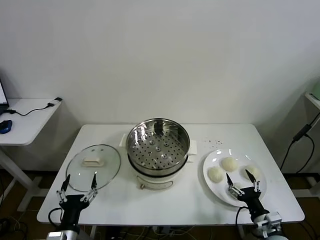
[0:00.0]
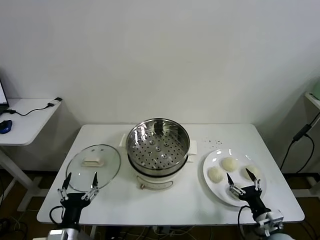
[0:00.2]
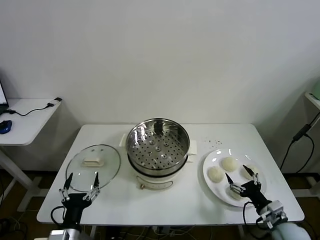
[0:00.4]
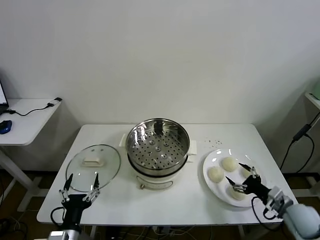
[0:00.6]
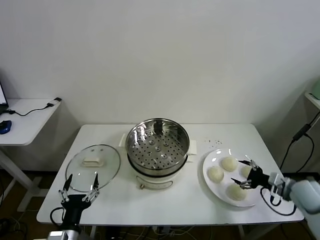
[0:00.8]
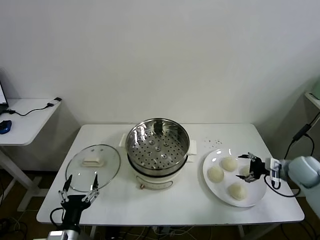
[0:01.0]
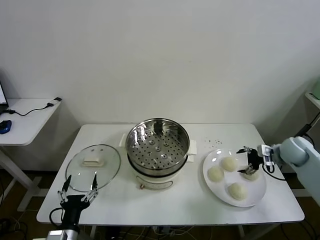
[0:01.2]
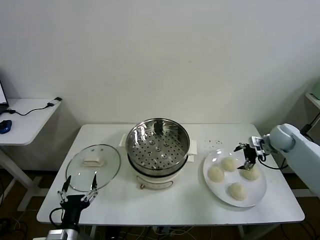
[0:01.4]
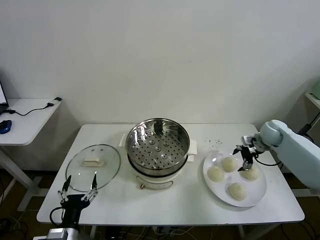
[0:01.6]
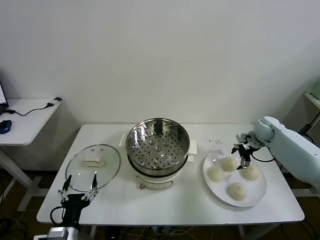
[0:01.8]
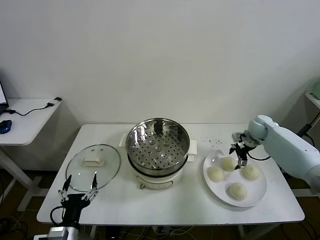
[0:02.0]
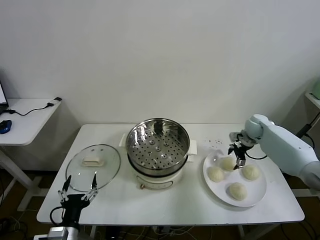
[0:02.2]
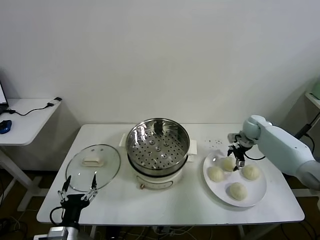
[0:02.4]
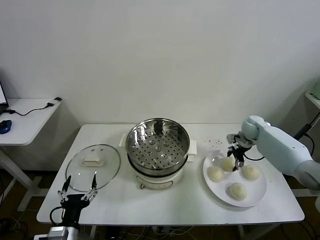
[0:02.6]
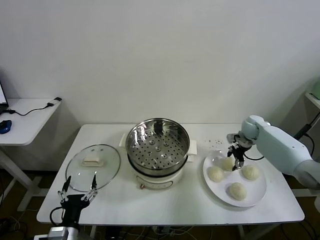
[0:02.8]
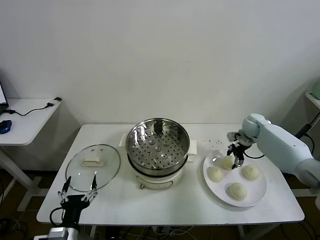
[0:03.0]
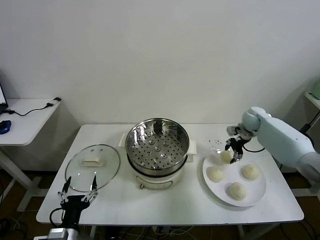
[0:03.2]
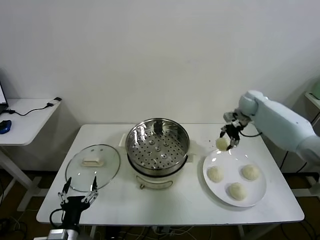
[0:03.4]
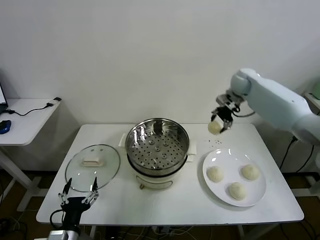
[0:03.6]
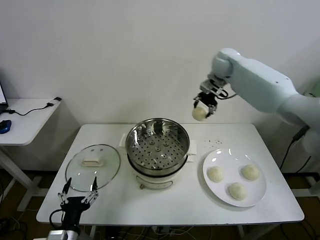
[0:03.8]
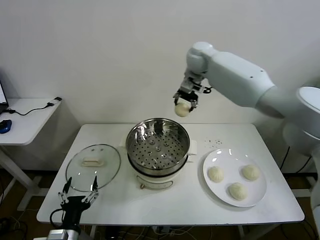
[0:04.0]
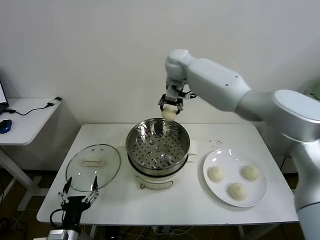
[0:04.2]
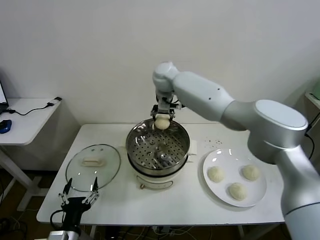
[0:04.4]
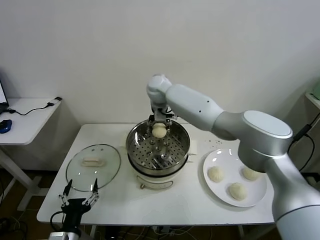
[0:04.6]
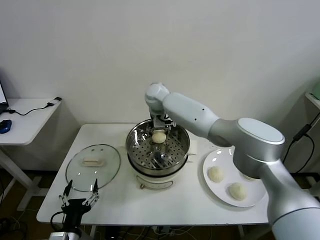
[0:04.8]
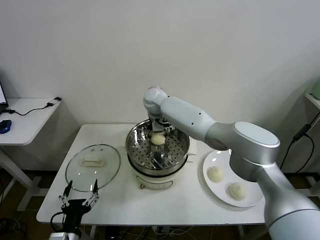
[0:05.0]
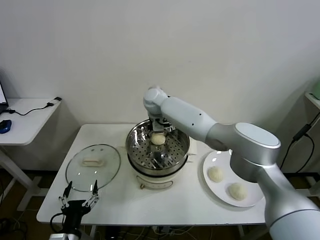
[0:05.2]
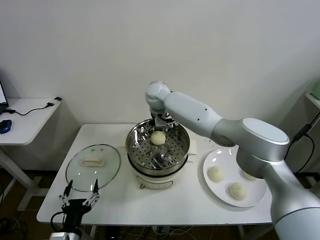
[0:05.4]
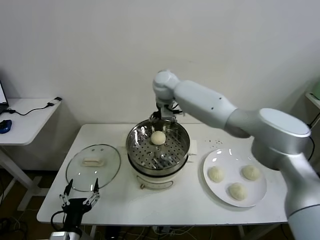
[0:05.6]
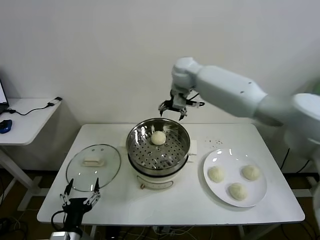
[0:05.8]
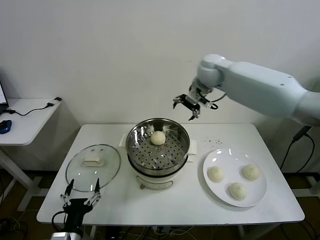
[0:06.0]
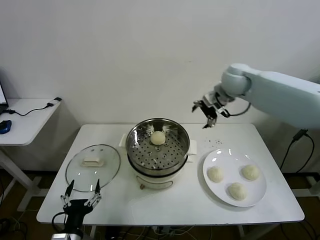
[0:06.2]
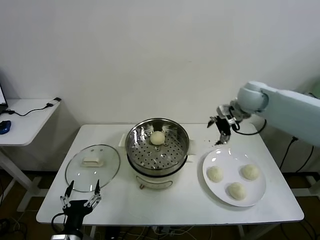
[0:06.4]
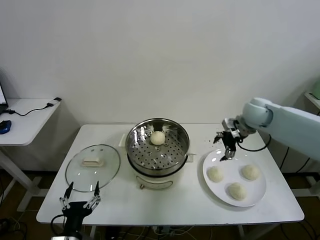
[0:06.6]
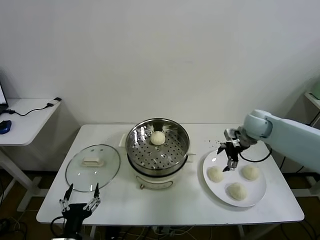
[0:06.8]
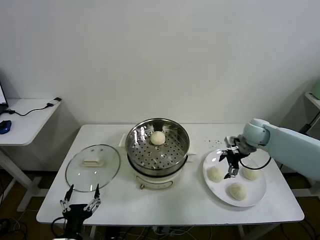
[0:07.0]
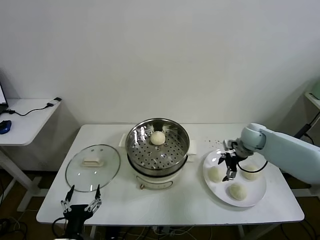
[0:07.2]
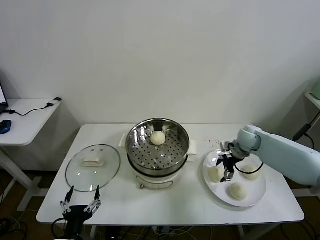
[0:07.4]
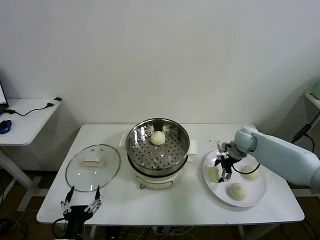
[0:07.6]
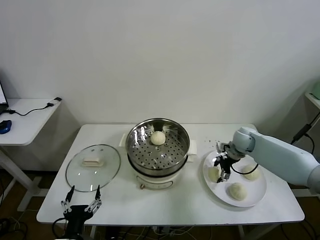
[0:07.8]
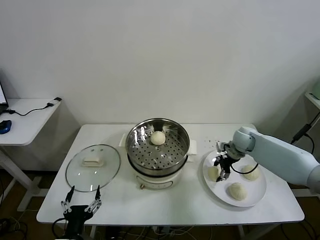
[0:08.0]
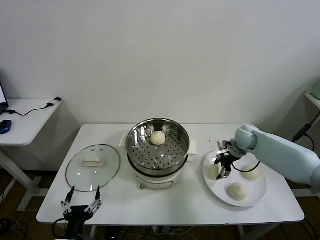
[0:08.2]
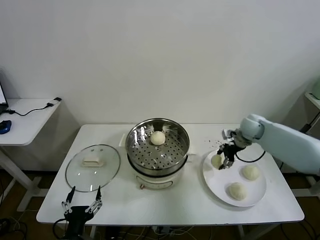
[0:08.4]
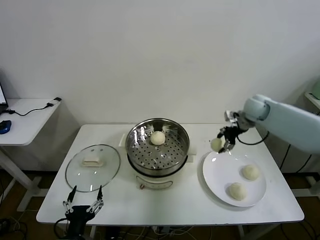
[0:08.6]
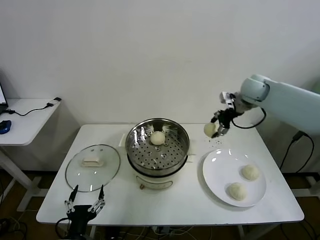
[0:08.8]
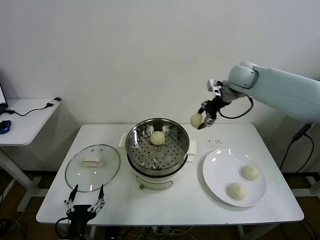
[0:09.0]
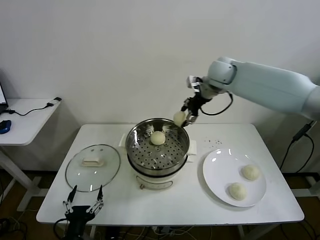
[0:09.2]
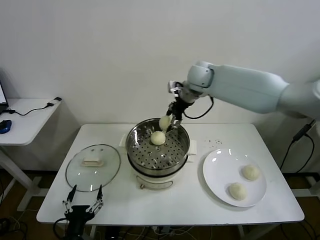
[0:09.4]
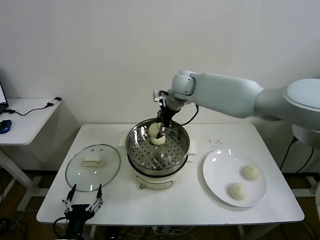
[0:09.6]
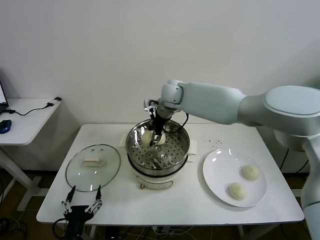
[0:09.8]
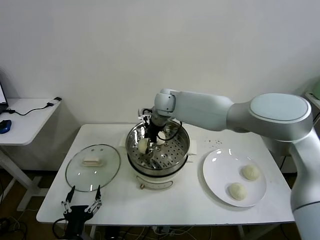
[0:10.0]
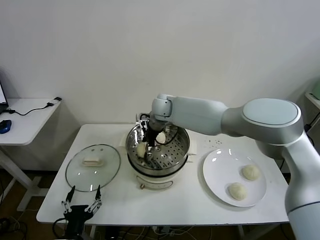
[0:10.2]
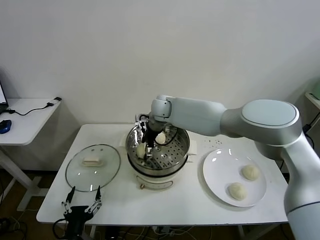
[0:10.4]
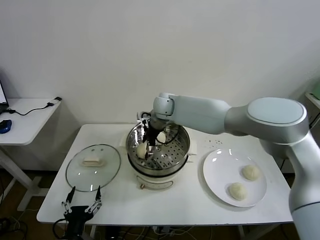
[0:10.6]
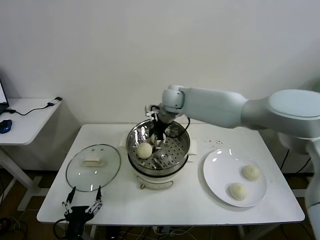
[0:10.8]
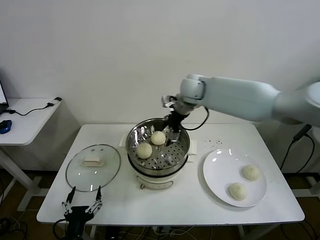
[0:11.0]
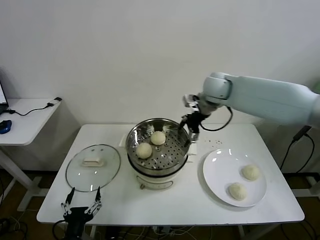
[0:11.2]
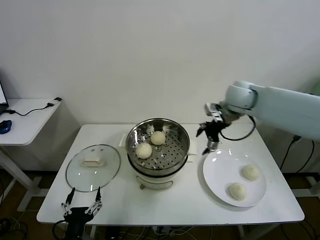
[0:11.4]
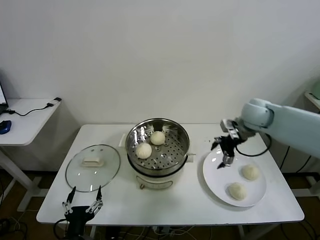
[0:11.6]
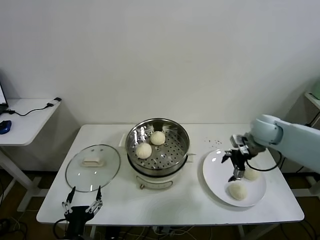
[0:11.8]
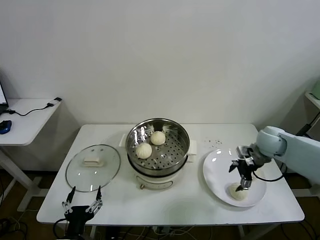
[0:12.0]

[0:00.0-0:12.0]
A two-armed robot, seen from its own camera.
Task of the whole recording: take steamed baozi put them in steamer then cover it.
Step, 0:00.0 to 0:02.8: Grasp the baozi in the plate with right gripper.
Step, 0:03.2 to 0:05.4: Place the baozi on the steamer with right gripper.
Step, 0:05.6 to 0:08.0: Grasp the baozi in the plate with right gripper.
Step, 0:08.2 to 0:10.4: Place the baozi on the steamer with right gripper.
0:01.6 to 0:03.0: The right gripper moves about 5 cm, and closes.
0:03.0 to 0:04.4: The right gripper moves to the left and upward, about 40 cm.
0:04.4 to 0:06.0: The right gripper heads to the right, covering about 20 cm, and opens.
0:06.0 to 0:07.6: The right gripper moves downward and to the right, approximately 30 cm.
0:07.6 to 0:09.0: The right gripper shifts some 25 cm upward, and closes up.
0:09.0 to 0:10.4: The right gripper heads to the left and downward, covering approximately 25 cm, and opens up.
0:10.4 to 0:12.0: The right gripper heads to the right, covering some 35 cm.

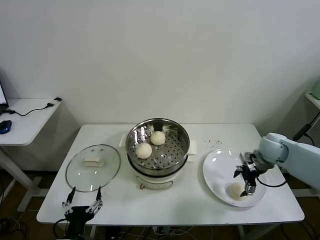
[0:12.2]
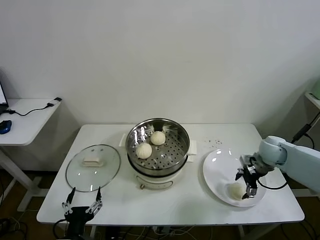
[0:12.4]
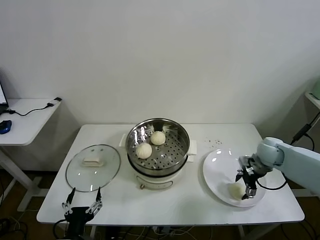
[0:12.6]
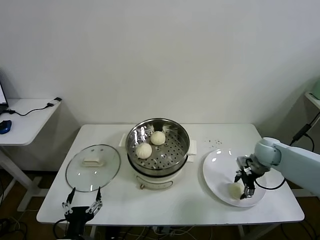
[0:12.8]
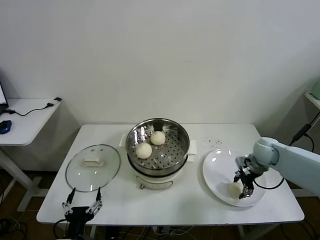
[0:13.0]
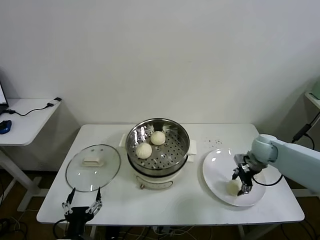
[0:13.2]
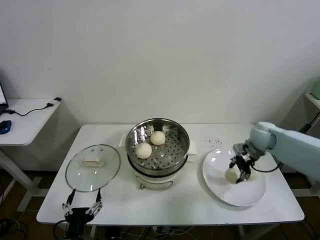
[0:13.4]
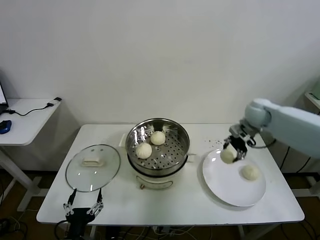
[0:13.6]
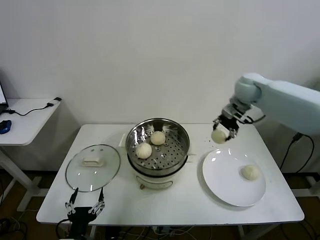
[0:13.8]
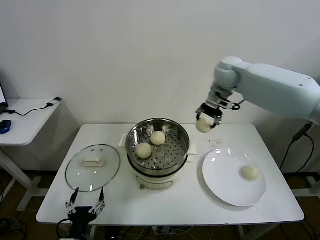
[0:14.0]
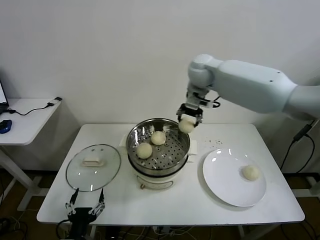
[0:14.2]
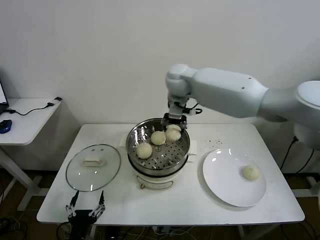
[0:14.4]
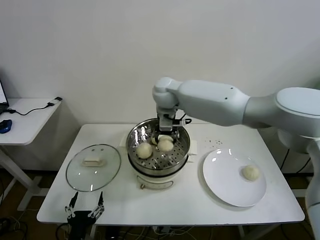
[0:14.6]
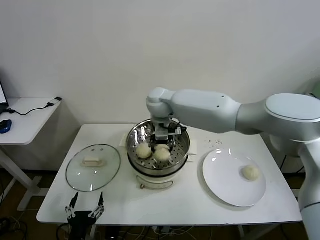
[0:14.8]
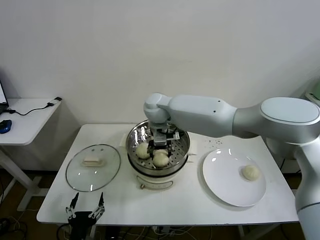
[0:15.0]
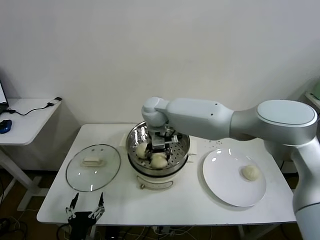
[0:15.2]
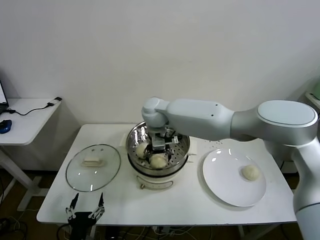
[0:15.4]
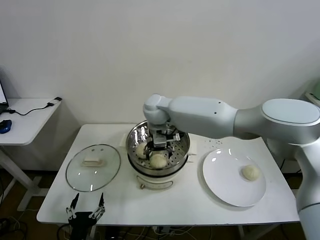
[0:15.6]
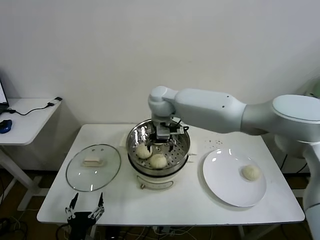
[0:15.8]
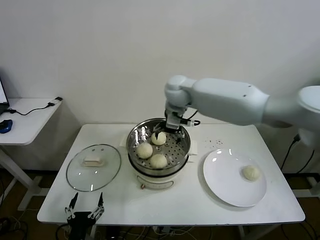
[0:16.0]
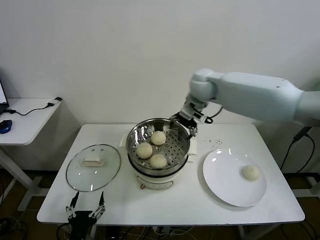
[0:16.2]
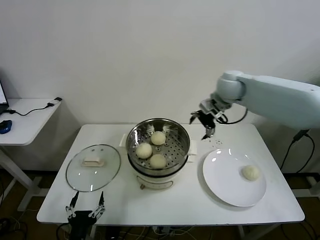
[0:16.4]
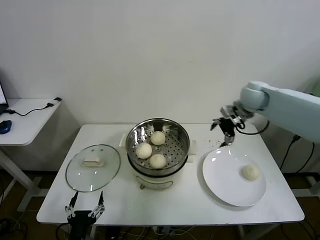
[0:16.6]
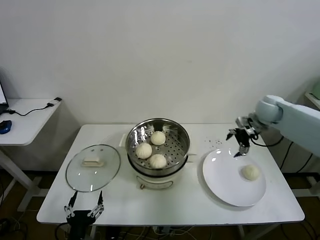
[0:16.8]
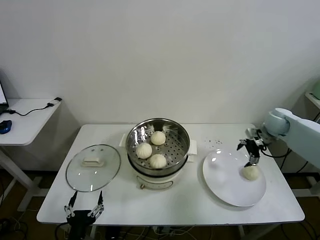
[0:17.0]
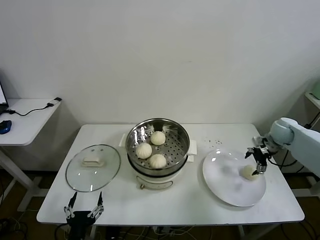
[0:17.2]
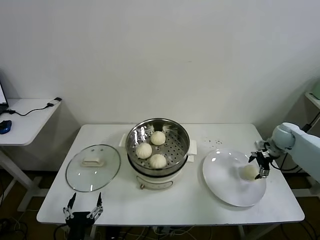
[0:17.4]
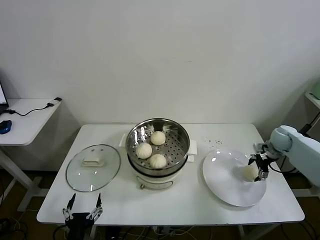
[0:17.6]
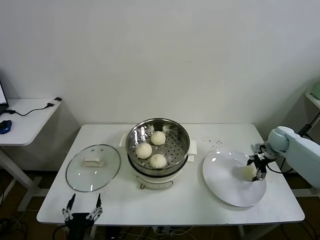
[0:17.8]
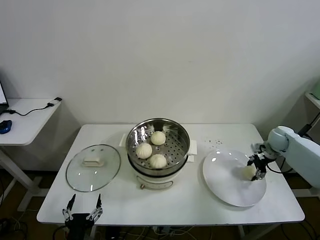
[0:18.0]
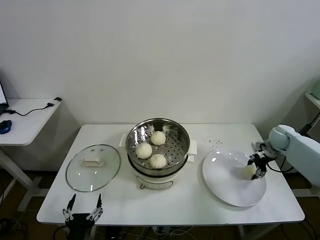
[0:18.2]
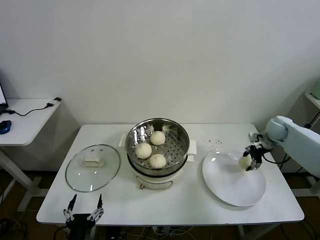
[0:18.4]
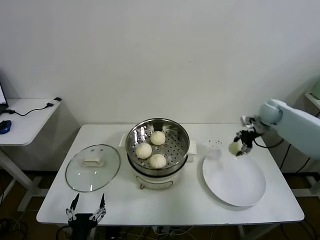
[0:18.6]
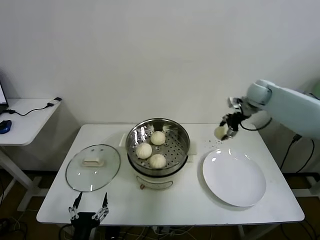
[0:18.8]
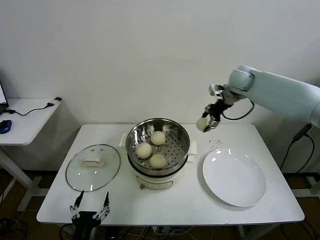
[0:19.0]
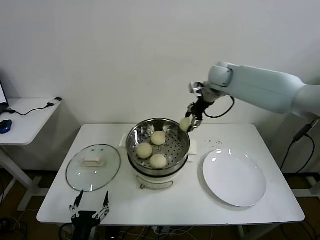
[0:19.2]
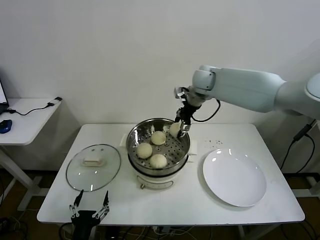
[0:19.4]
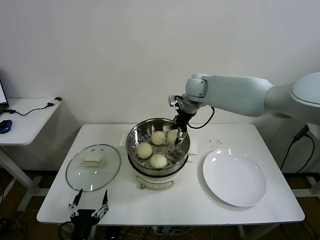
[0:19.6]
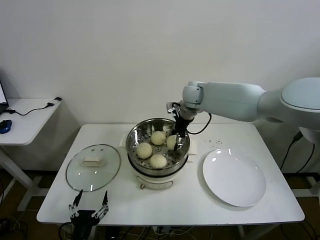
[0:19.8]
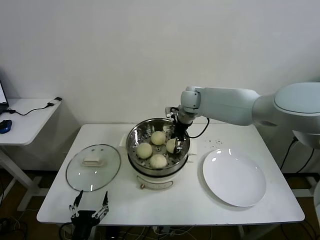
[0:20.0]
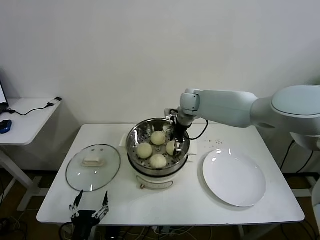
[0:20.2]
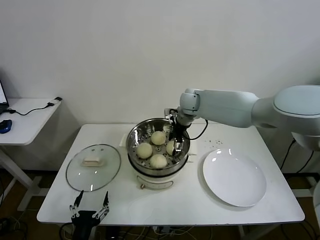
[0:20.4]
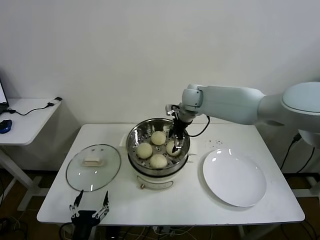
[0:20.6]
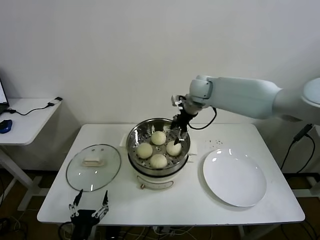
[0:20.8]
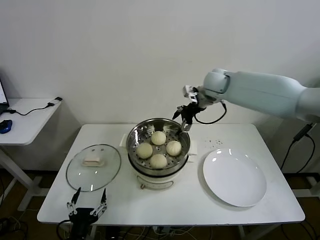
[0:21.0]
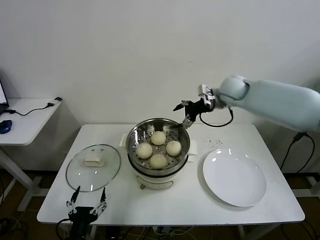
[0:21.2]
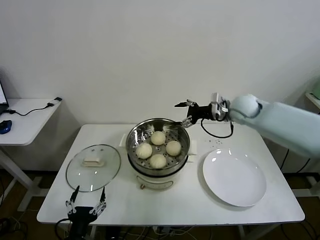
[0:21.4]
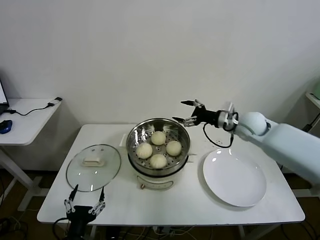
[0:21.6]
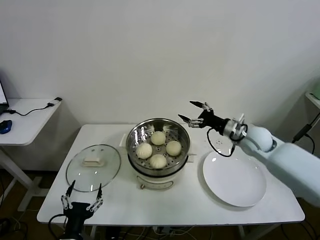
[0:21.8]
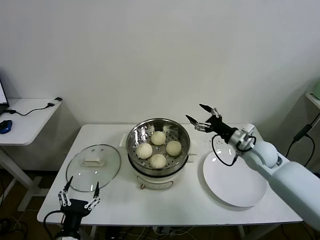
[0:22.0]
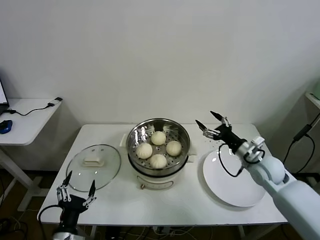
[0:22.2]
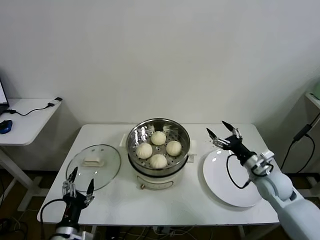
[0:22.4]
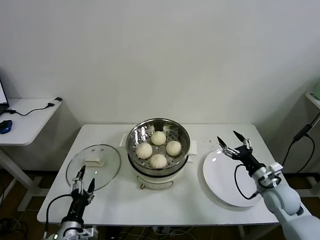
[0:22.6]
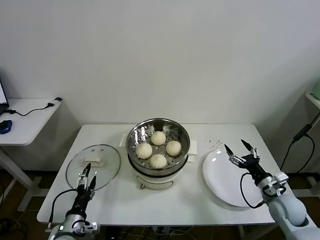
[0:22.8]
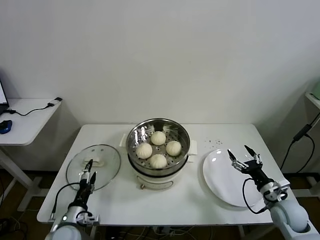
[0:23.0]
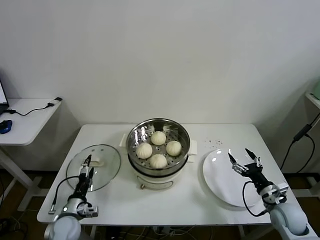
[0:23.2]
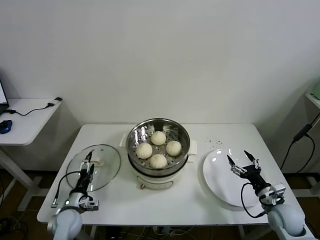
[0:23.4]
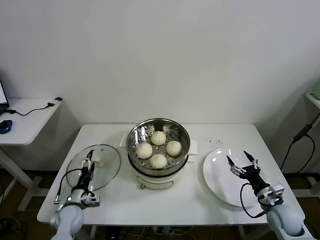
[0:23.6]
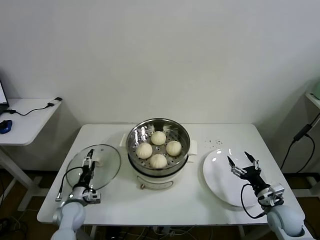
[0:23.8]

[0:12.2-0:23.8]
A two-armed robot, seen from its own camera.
Task of the whole recording: take steamed baozi put them in steamer then cover it.
Step, 0:13.2 to 0:15.6: Place the baozi on the steamer with right gripper.
Step, 0:15.8 to 0:18.2: Grasp the baozi in the plate with right gripper.
Step, 0:18.4 to 0:20.6: Place the baozi on the steamer with right gripper.
0:12.2 to 0:13.6: The right gripper goes some 15 cm upward, forward and to the left, and closes.
0:13.6 to 0:15.0: The right gripper travels to the left by some 35 cm.
0:15.0 to 0:16.6: The right gripper goes about 35 cm to the right, and opens its fingers.
0:16.6 to 0:18.0: The right gripper travels downward and to the right by roughly 25 cm, and closes.
0:18.0 to 0:19.4: The right gripper travels to the left and upward by approximately 40 cm.
0:19.4 to 0:21.0: The right gripper reaches roughly 10 cm downward, then returns, and opens its fingers.
0:21.0 to 0:22.4: The right gripper goes roughly 40 cm backward, downward and to the right.
0:22.4 to 0:23.8: The right gripper heads downward and backward, covering about 15 cm; the left gripper shifts some 20 cm forward and downward.
